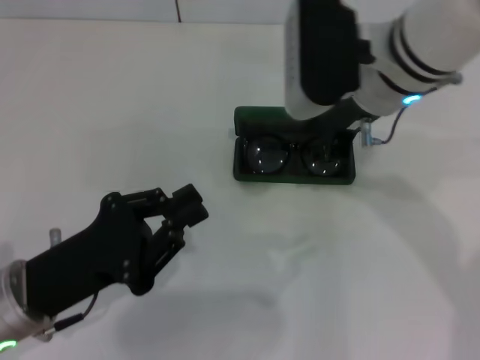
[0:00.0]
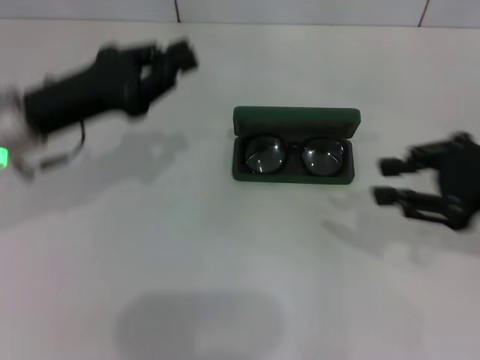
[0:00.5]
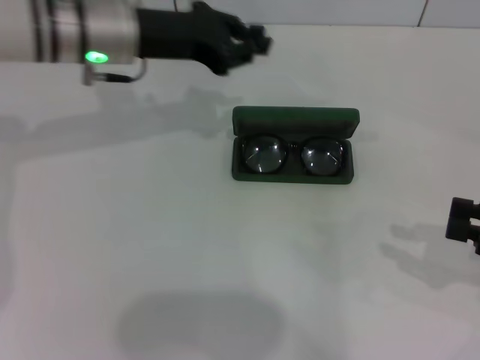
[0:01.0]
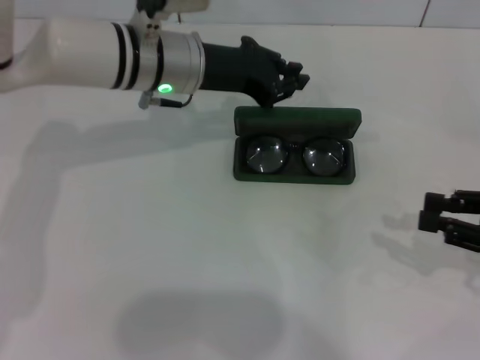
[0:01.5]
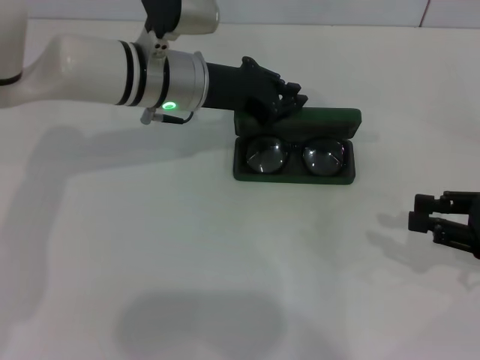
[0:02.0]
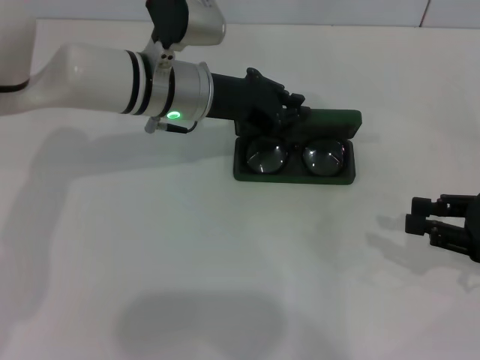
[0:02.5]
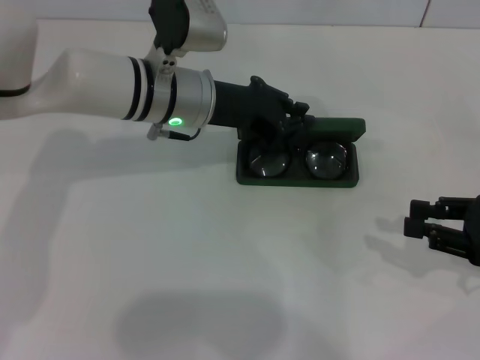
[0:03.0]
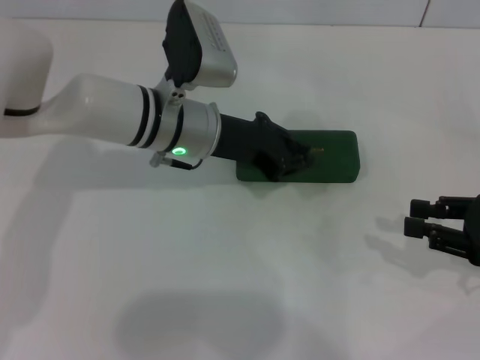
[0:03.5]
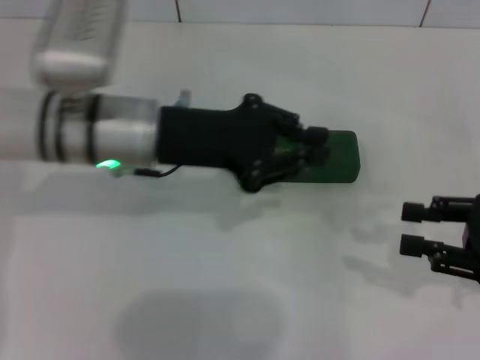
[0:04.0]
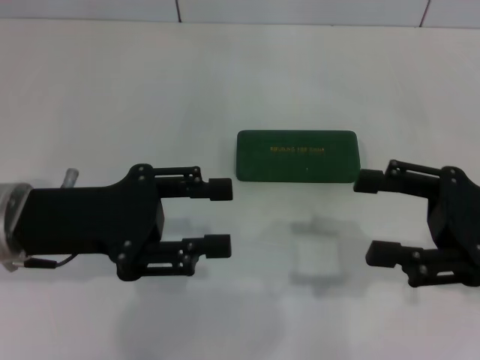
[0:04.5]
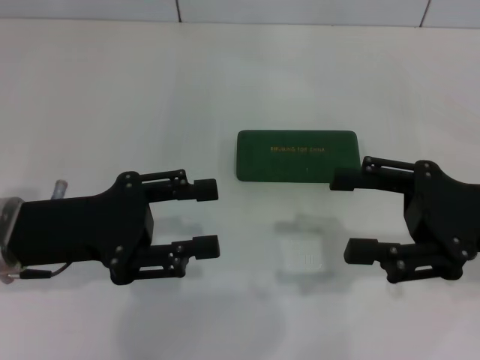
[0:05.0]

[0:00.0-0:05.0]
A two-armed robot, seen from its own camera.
Step, 0:00.0 to 0:03.5: Close the glasses case with your left hand.
0:00.0 to 0:02.5: The right gripper travels to the right, downward and backward by roughly 30 cm. The left gripper goes some 25 cm forward and to the right.
0:02.5 to 0:05.0: The right gripper goes some 10 cm to the left, and opens, while the left gripper goes approximately 20 cm backward and to the left, and opens its fingers.
